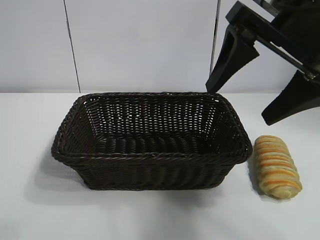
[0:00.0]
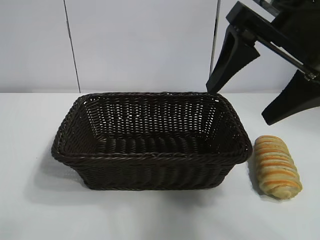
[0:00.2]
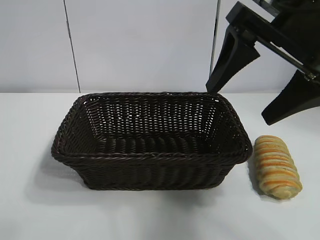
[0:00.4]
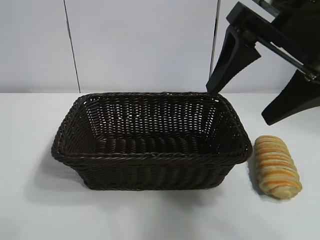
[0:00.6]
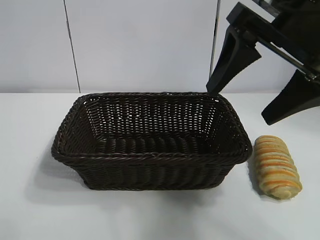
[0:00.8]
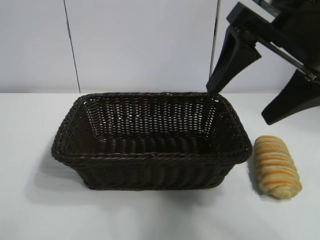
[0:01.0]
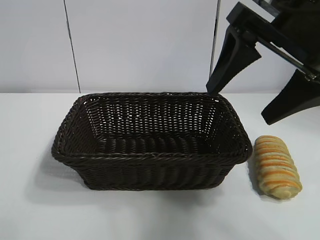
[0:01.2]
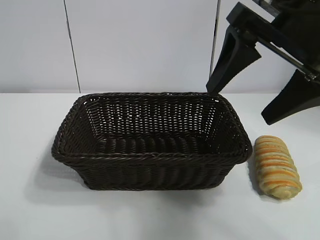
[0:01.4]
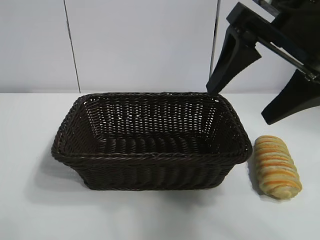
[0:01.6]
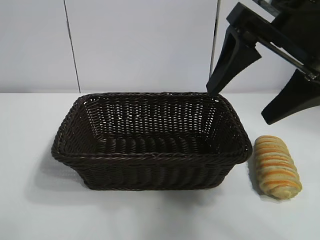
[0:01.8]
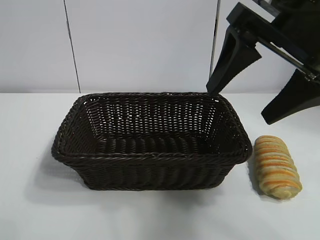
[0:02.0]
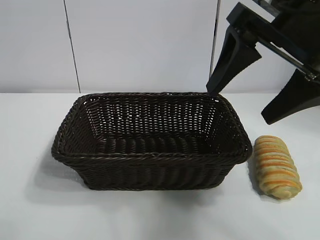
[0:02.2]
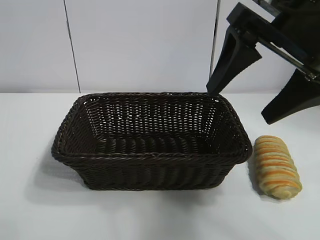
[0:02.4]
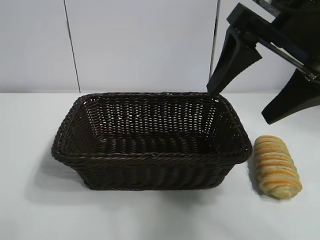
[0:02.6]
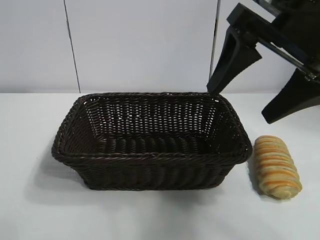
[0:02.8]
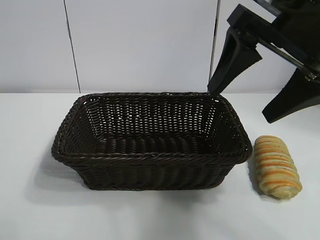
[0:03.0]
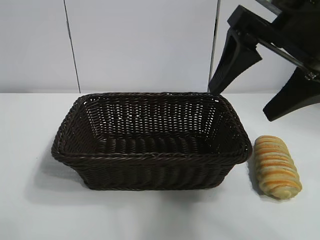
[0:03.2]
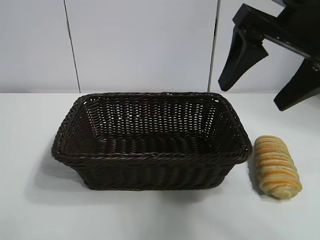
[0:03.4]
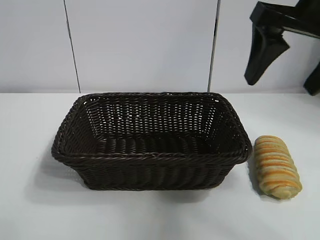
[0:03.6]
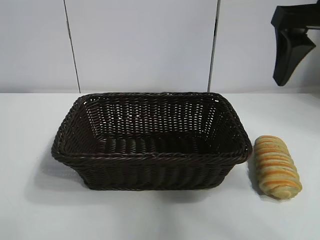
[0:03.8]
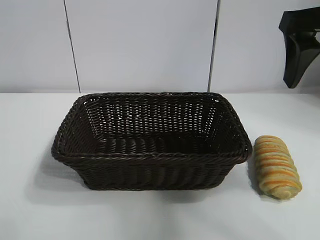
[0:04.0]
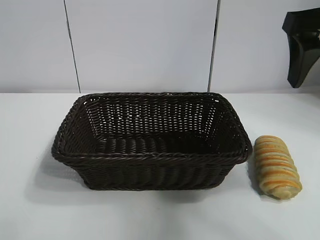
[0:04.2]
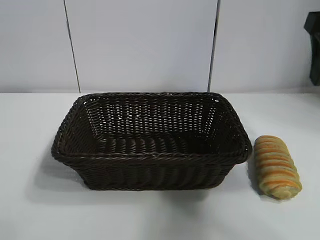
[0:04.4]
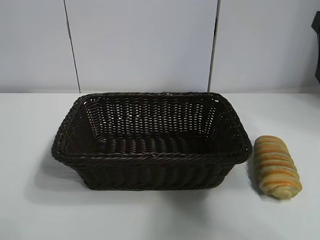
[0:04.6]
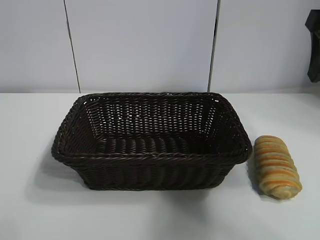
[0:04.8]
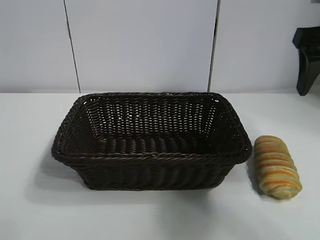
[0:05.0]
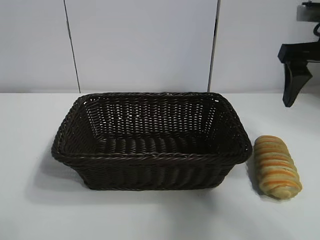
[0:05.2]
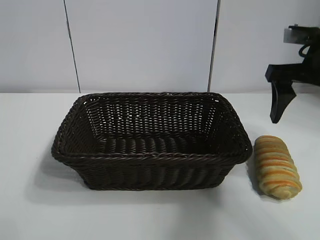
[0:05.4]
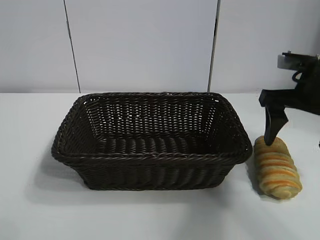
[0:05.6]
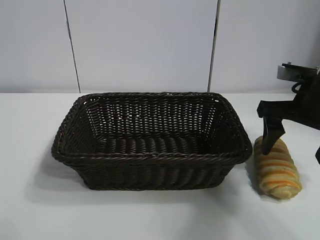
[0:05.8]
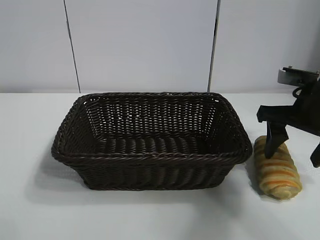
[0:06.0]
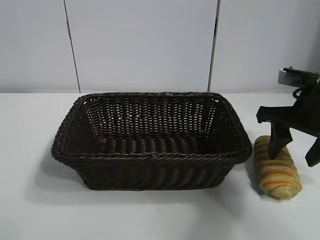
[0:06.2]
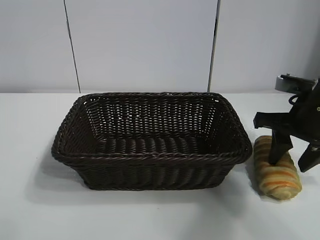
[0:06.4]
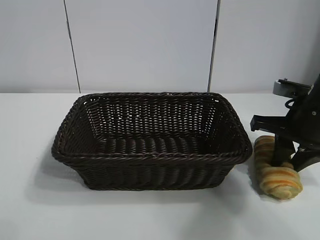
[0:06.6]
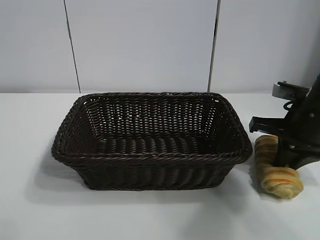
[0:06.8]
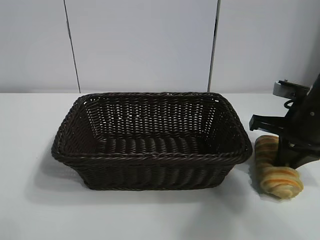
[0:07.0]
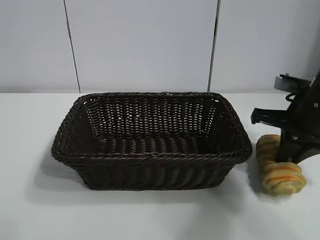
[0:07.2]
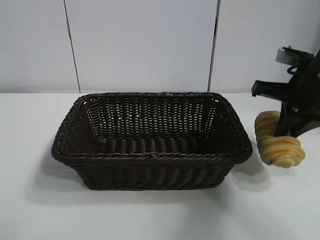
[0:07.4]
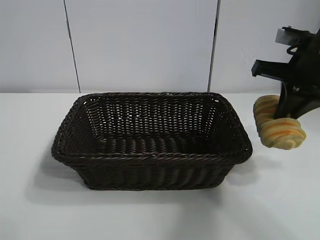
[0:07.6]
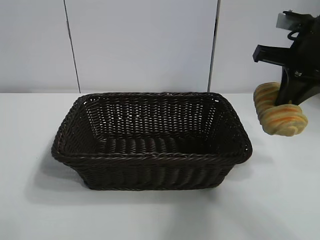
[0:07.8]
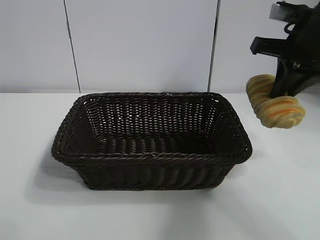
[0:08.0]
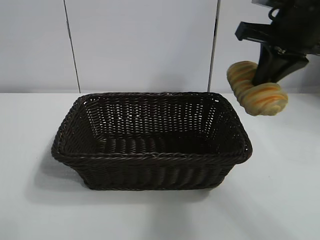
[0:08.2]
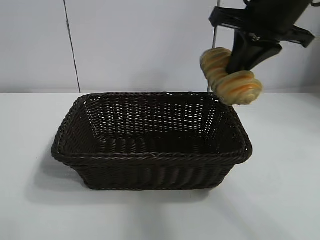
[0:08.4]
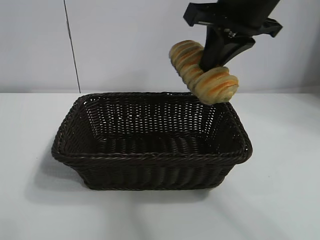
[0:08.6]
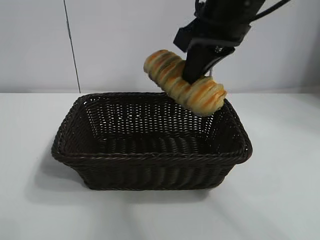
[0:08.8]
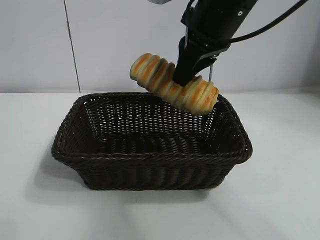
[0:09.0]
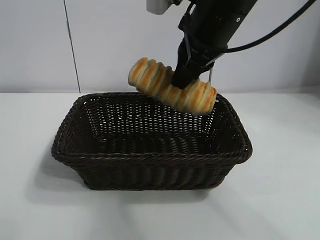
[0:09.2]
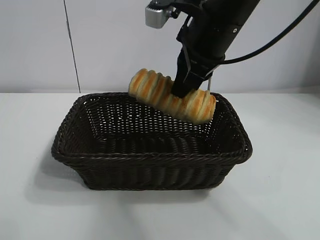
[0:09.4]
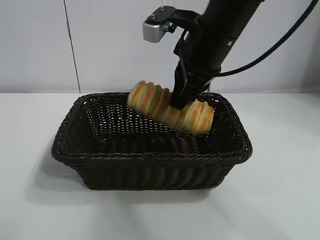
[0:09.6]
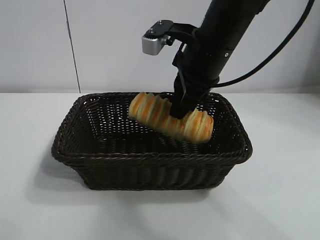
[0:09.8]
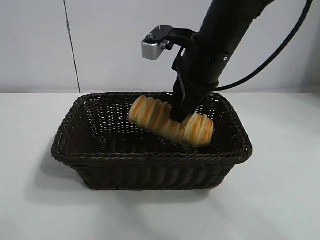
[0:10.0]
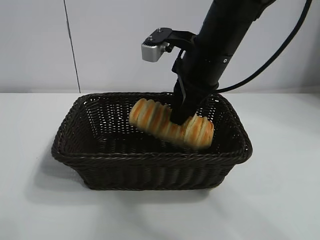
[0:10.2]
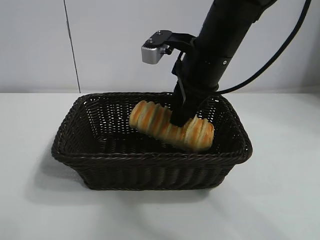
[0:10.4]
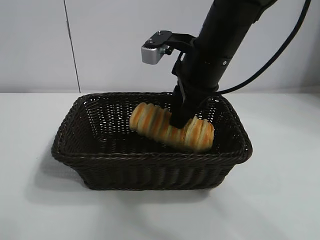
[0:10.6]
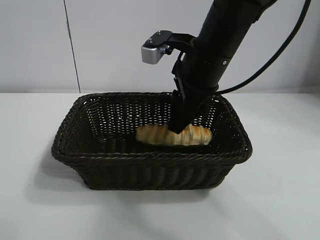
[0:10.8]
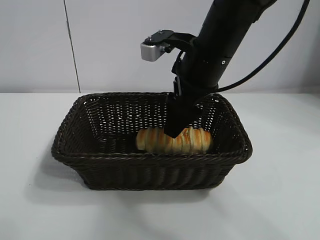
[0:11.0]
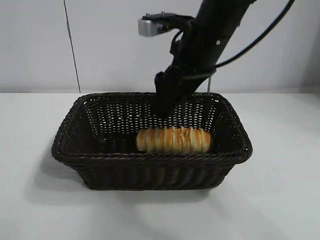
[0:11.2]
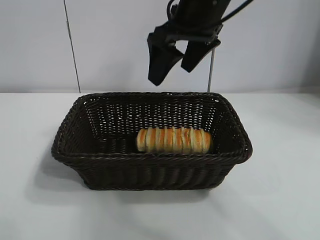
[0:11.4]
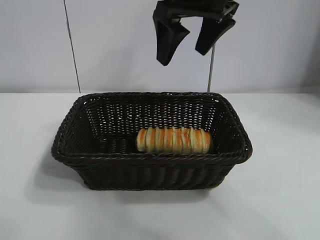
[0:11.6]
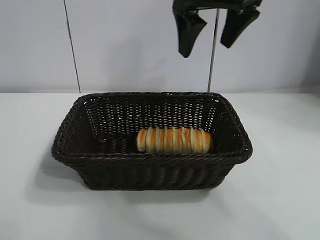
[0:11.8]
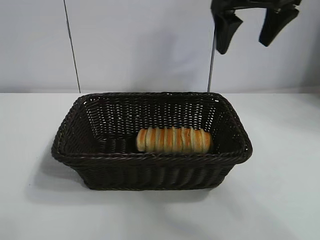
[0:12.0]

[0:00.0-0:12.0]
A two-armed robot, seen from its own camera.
Task of the whole recording: pick up the long bread and put it into the basket.
Step, 0:00.0 to 0:07.0: Grasp the long bread with right gripper.
Step, 0:07.2 to 0:11.0: Place the long bread in the basket with right gripper.

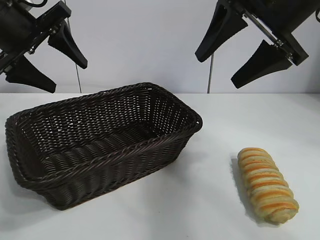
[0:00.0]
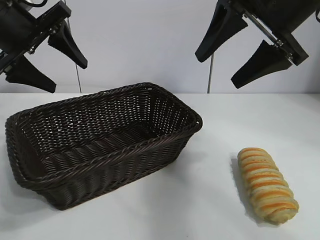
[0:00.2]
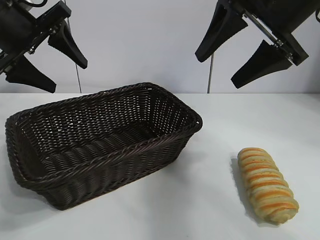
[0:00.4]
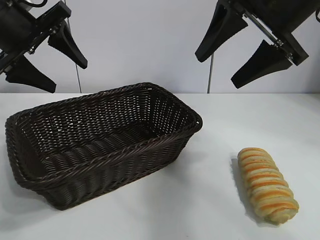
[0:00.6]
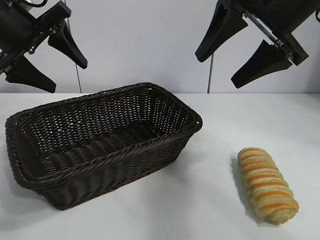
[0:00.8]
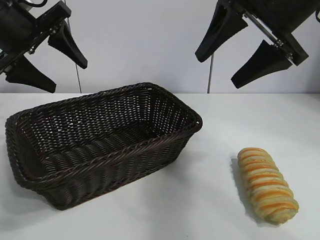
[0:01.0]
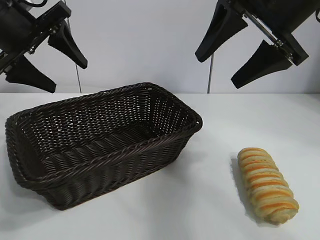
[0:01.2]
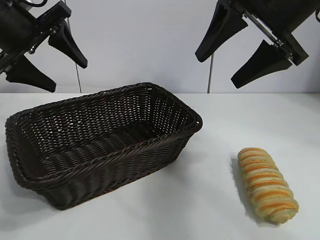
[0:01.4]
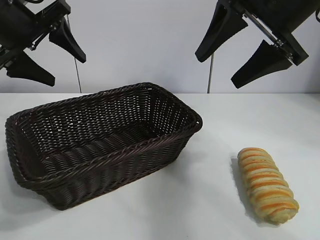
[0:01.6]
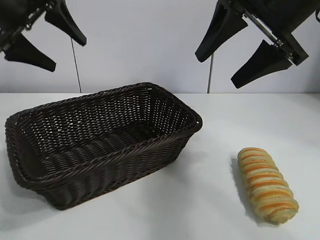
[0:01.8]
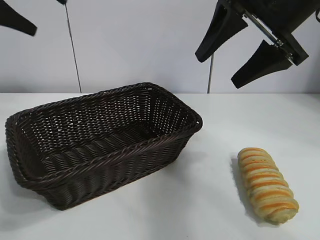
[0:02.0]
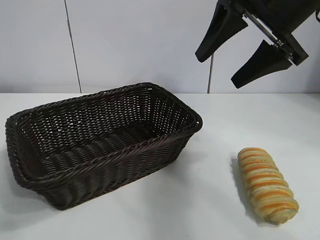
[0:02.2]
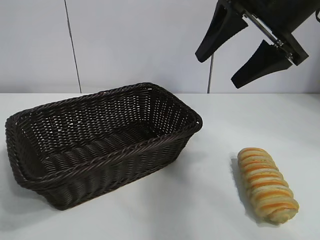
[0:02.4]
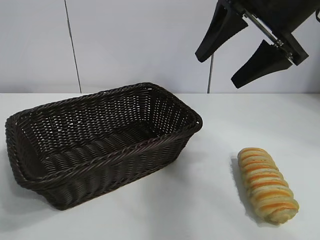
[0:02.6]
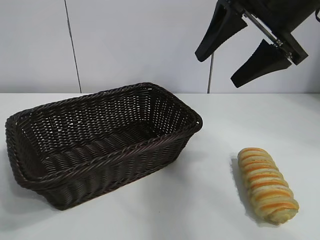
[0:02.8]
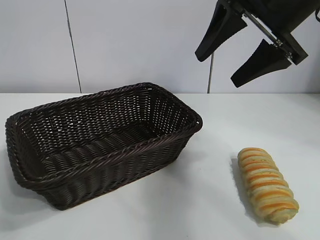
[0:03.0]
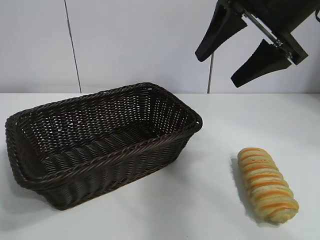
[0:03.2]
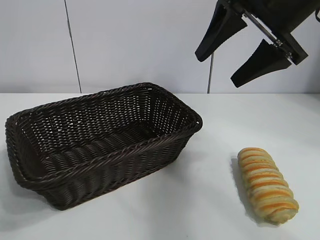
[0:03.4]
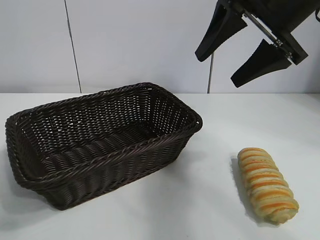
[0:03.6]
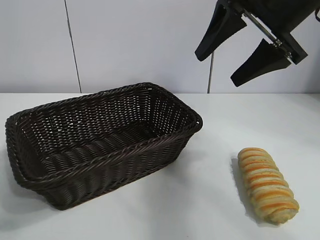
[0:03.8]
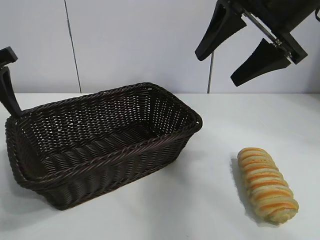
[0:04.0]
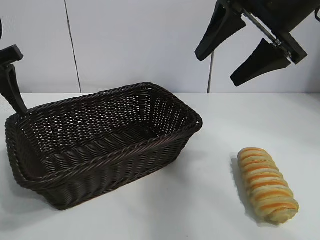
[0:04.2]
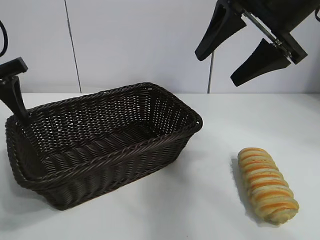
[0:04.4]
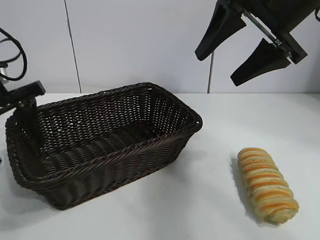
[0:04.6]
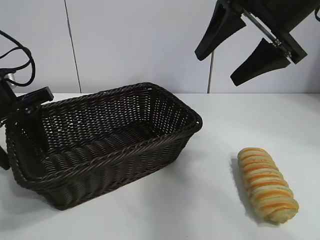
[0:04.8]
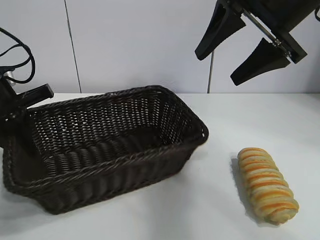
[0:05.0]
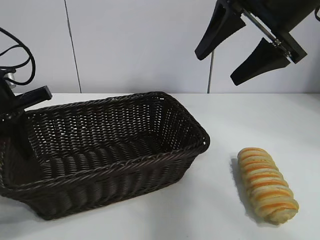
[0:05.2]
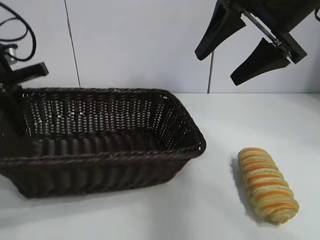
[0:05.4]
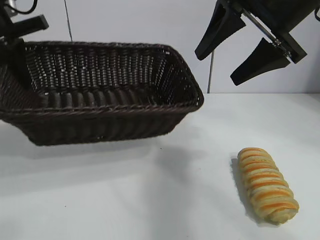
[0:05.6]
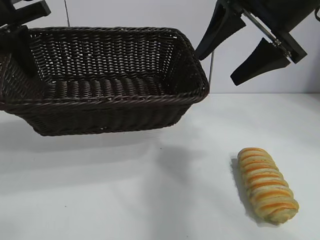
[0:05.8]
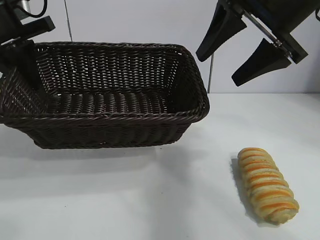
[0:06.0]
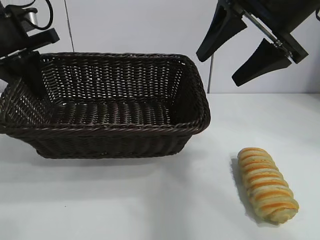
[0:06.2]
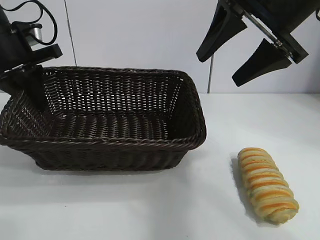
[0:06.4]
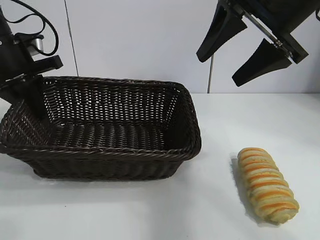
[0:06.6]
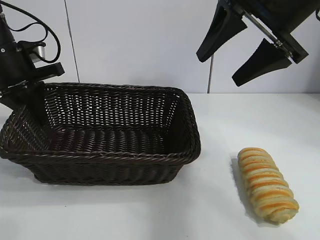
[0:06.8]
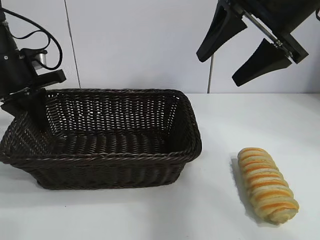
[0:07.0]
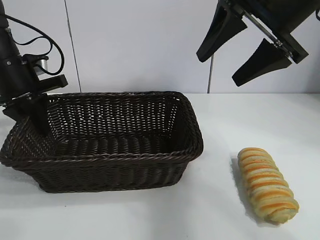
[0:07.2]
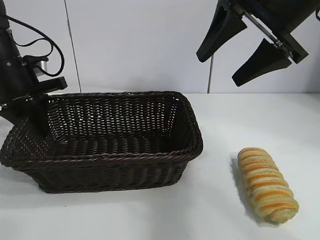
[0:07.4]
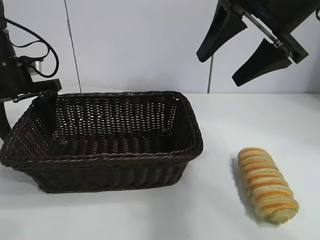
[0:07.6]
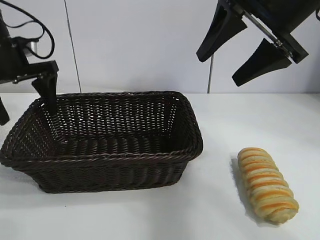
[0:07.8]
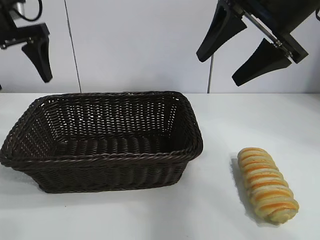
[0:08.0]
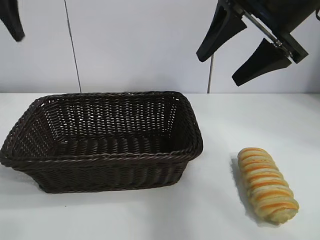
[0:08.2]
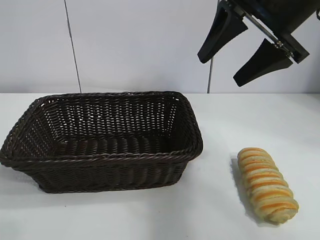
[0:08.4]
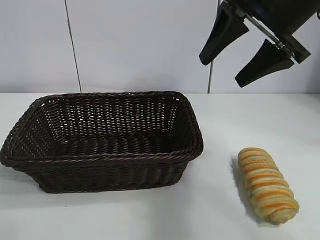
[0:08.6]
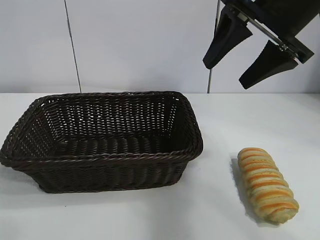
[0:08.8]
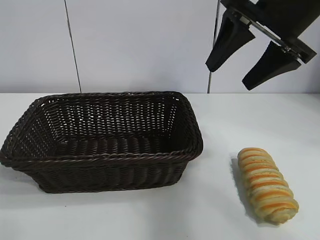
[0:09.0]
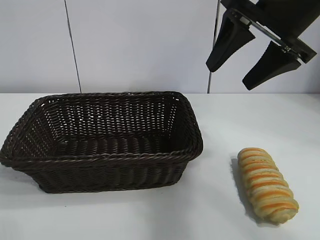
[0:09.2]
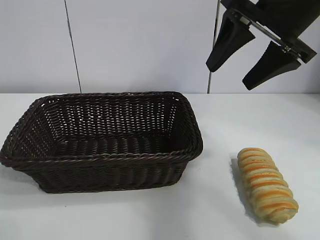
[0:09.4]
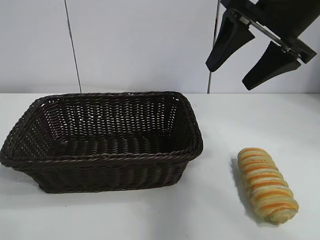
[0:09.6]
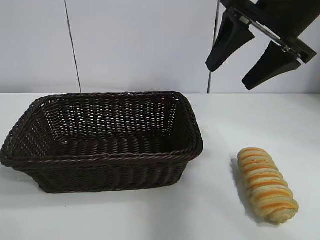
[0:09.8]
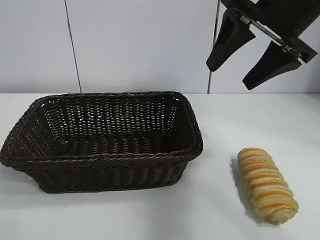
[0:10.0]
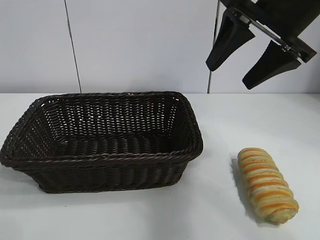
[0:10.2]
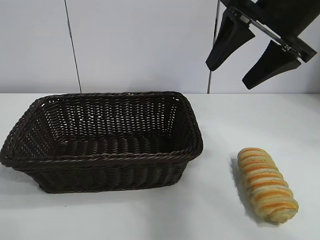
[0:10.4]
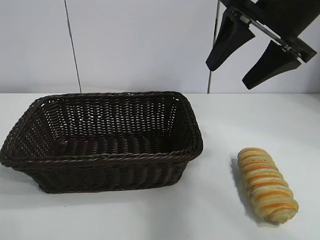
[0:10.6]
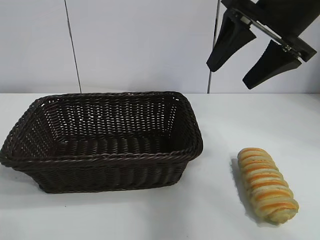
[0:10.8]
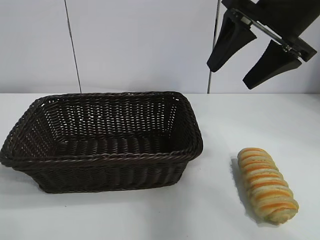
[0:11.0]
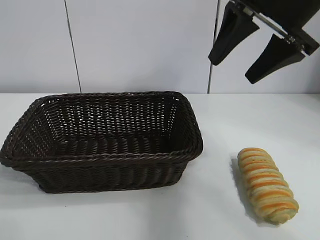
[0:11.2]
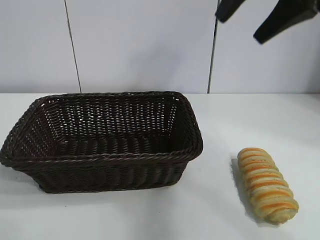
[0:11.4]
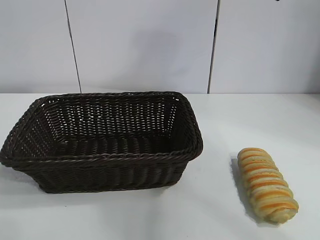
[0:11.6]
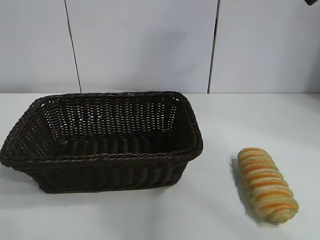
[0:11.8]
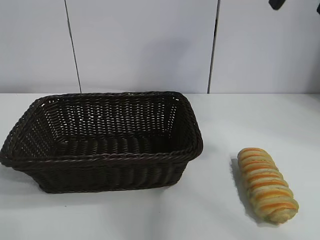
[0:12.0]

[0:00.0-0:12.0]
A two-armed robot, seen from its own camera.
Task of the whole recording: pick up the long bread and put it into the basket.
Step, 0:01.6 to 0:05.2: Grasp the basket with the left gripper.
Step, 0:05.4 to 0:07.4: Place the basket in the center of the table with the left gripper.
